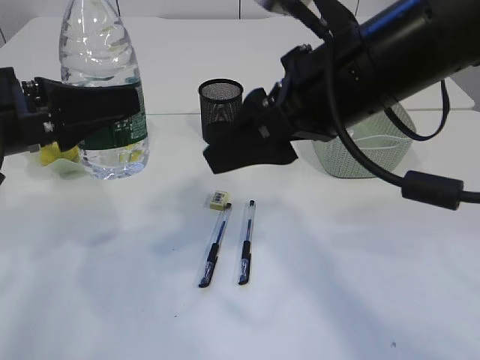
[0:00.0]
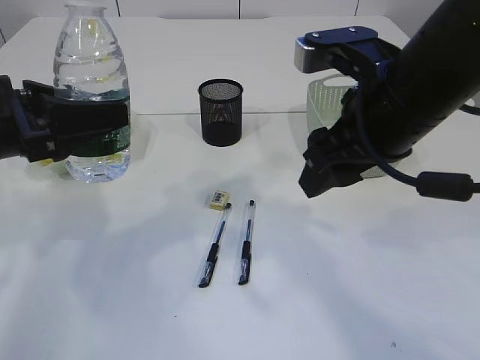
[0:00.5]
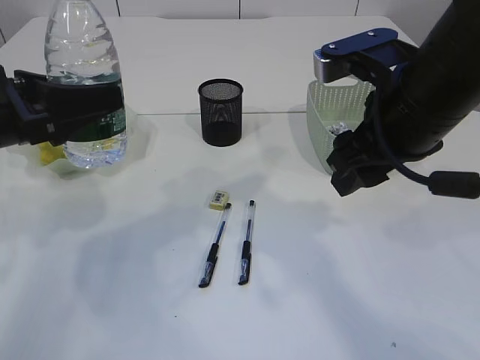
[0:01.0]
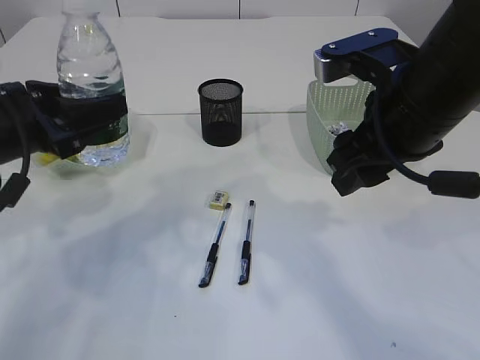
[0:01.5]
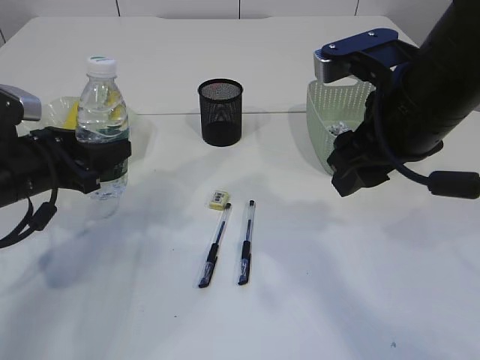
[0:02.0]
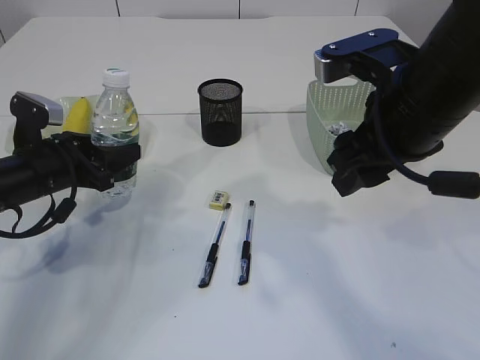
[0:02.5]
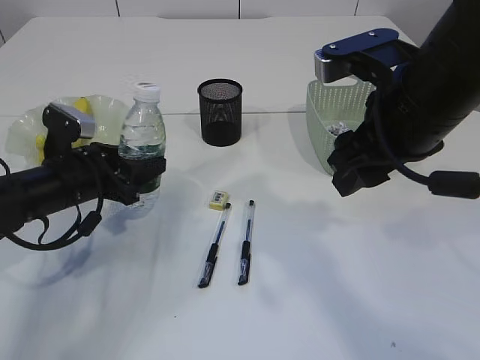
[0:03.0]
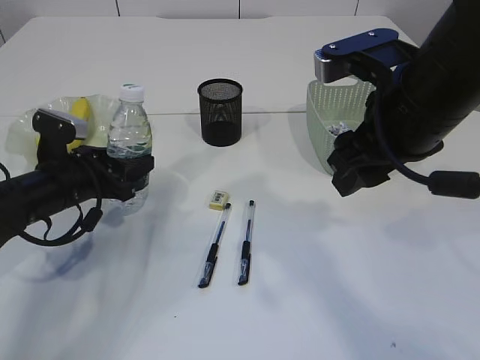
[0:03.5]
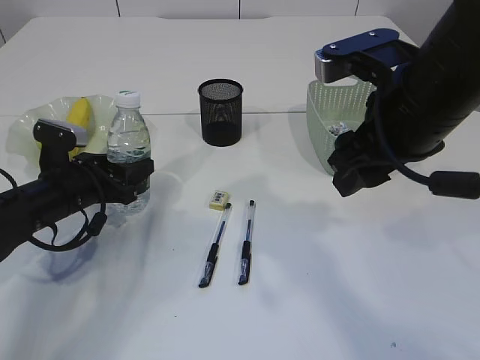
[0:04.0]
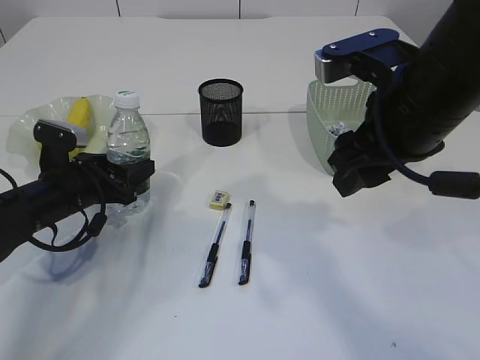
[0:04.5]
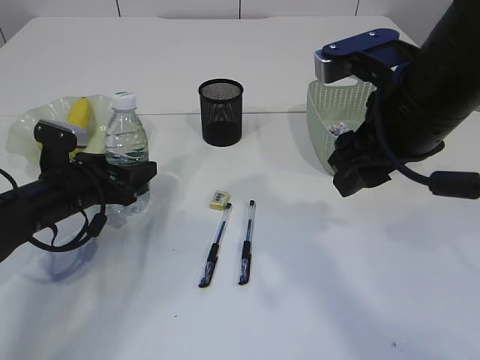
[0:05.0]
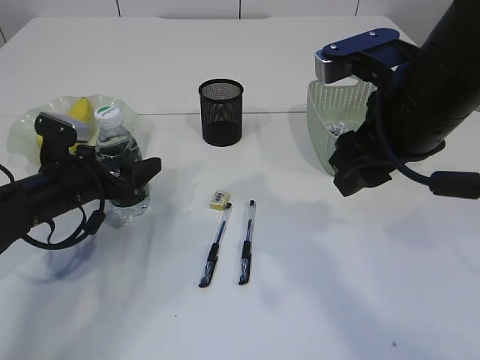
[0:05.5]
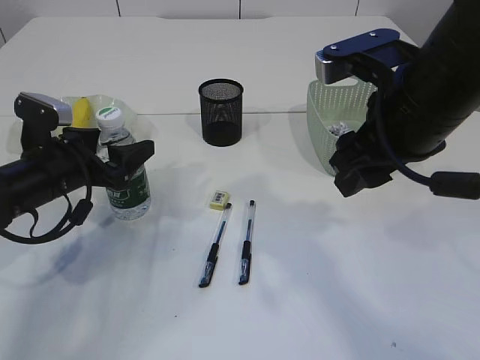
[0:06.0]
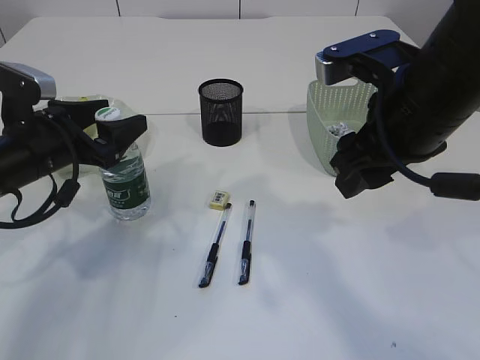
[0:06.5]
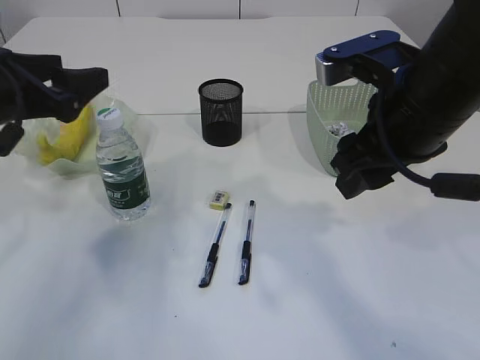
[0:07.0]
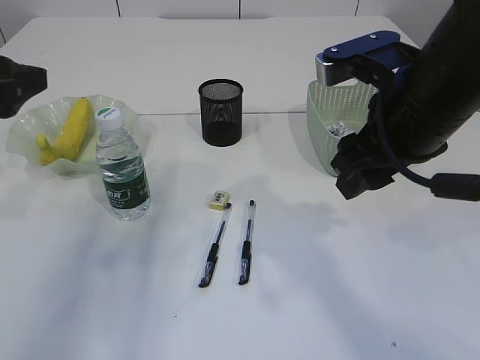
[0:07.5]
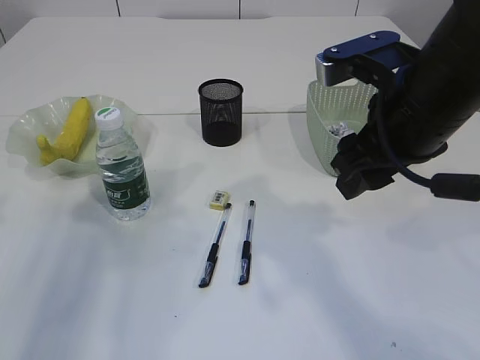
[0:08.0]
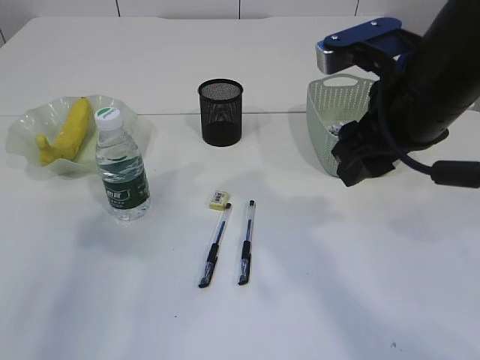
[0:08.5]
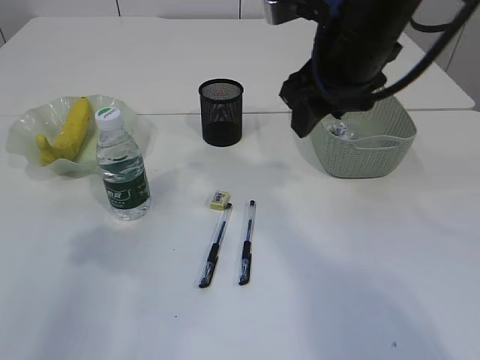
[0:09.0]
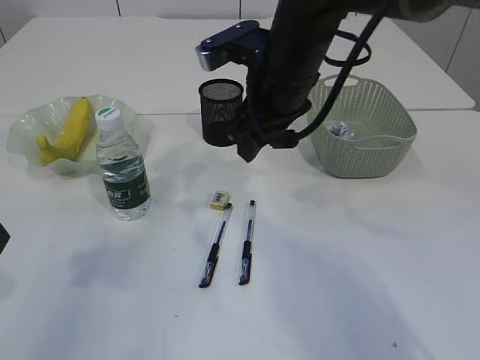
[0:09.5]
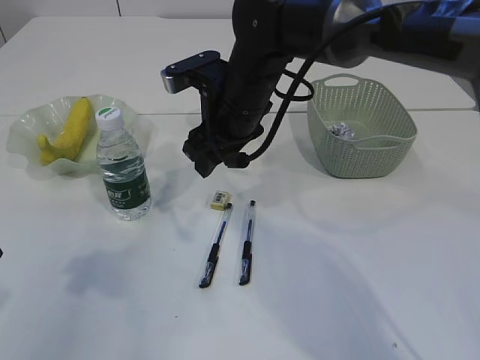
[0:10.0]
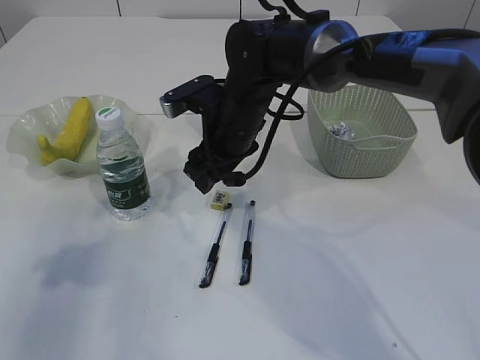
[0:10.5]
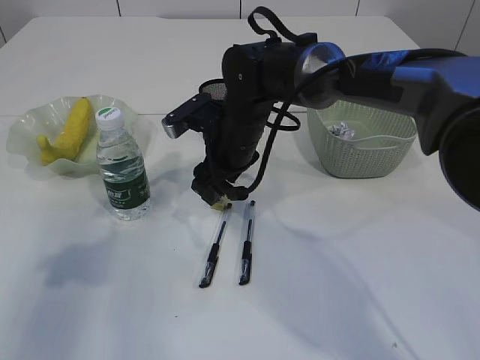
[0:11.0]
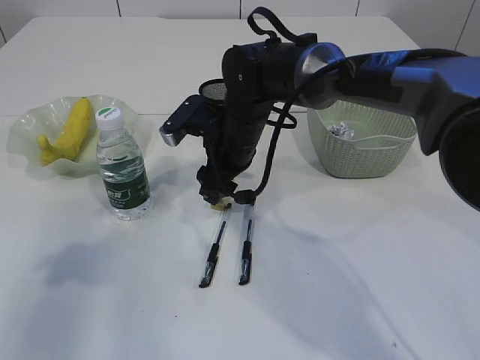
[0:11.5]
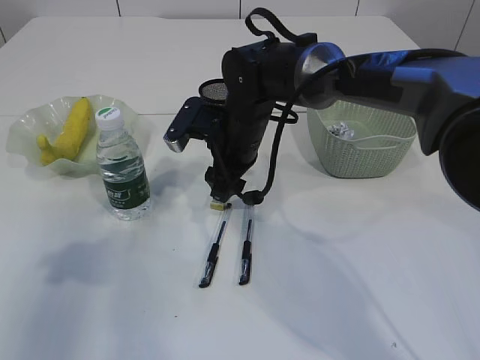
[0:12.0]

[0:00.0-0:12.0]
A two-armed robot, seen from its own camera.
Step, 0:00.0 to 0:06.5: Place the bottle.
0:00.0 to 0:02.0: The left gripper shifts roughly 10 cm downward and forward; the right gripper goes roughly 5 cm to the right.
0:02.0 to 0:04.0: The left gripper travels downward by roughly 5 cm.
0:04.0 to 0:06.0: There are only small adjustments of the grippers.
0:06.0 to 0:08.0: The left gripper heads upward, backward and to the left, covering roughly 20 cm.
0:08.0 to 0:10.0: The left gripper moves about 5 cm. The right gripper heads to the left, forward and downward, covering some 20 cm.
0:10.0 to 0:12.0: The right gripper travels downward by roughly 5 cm.

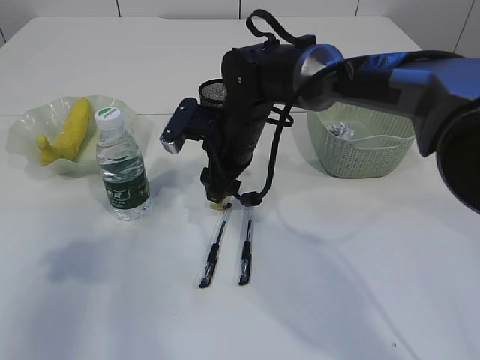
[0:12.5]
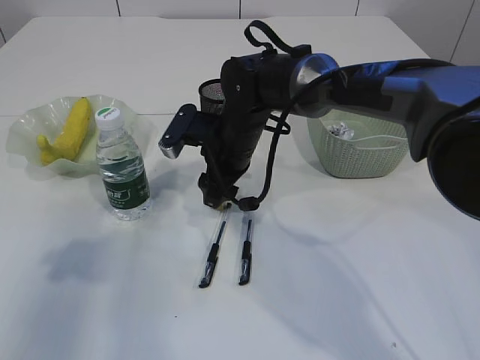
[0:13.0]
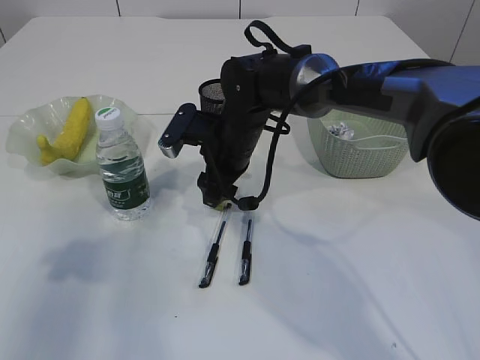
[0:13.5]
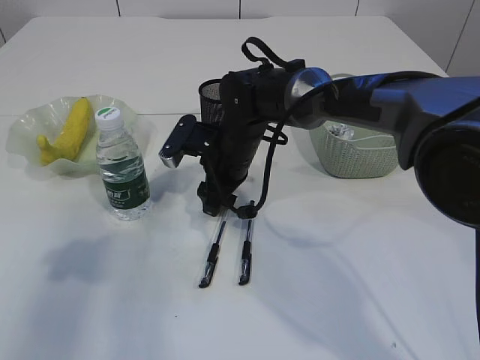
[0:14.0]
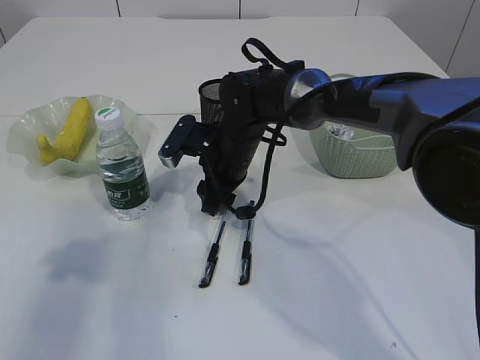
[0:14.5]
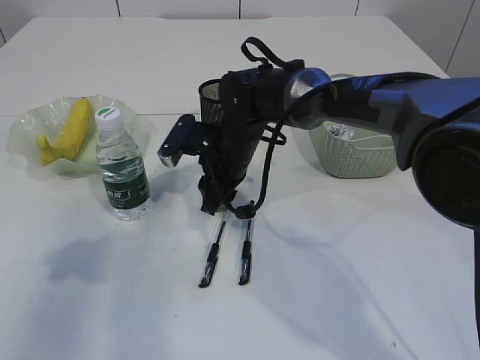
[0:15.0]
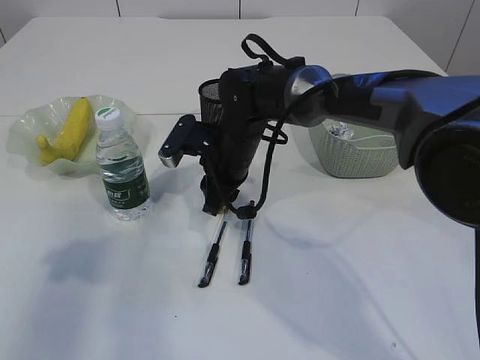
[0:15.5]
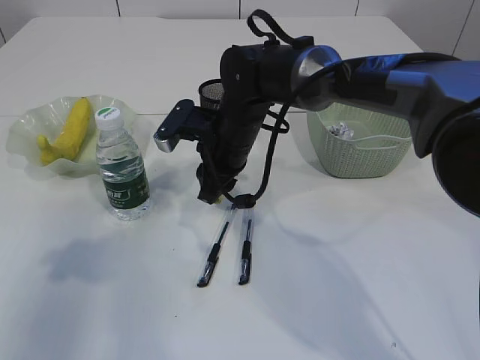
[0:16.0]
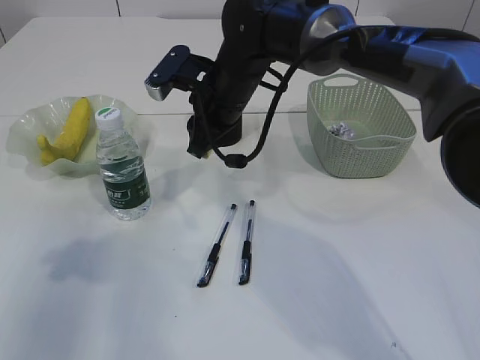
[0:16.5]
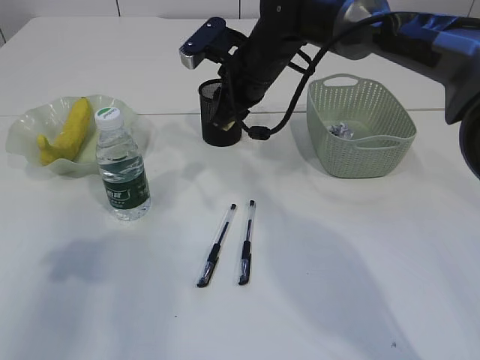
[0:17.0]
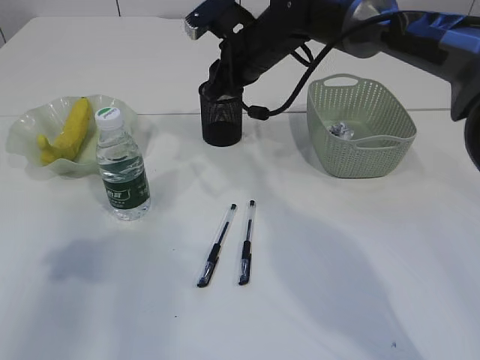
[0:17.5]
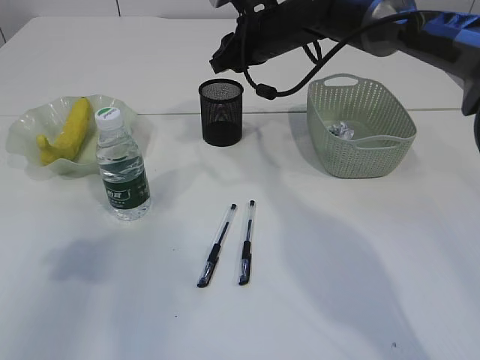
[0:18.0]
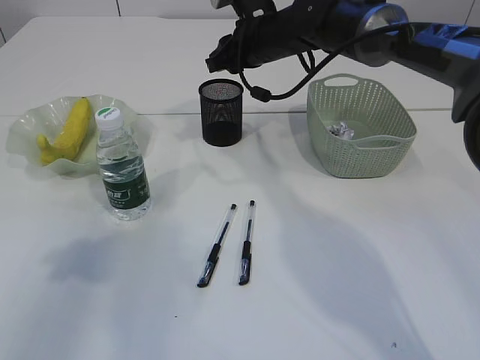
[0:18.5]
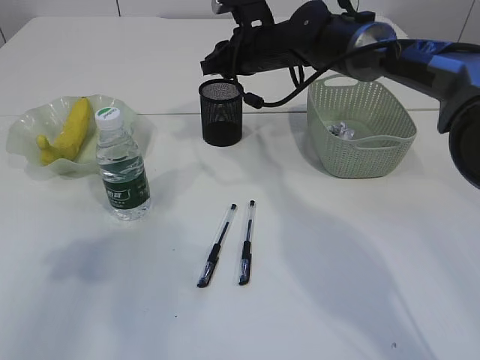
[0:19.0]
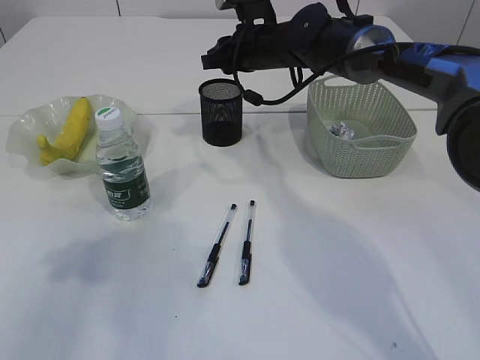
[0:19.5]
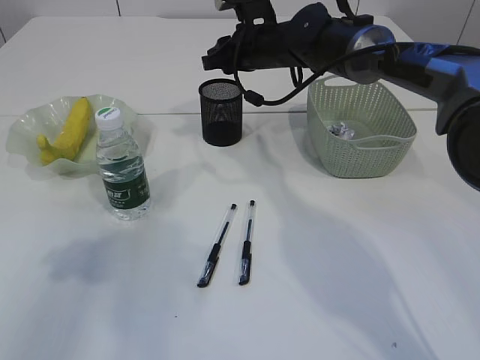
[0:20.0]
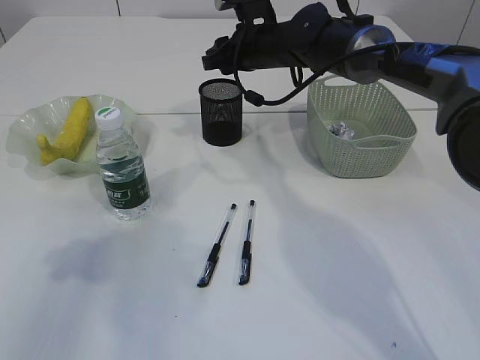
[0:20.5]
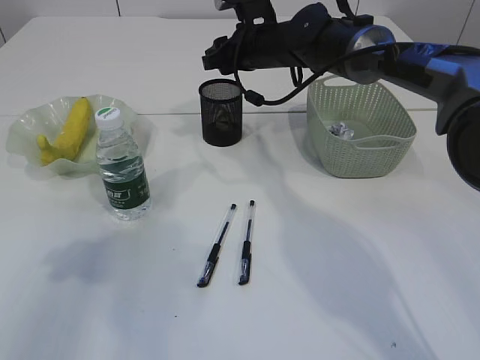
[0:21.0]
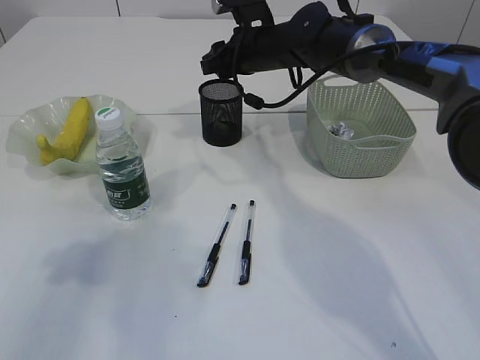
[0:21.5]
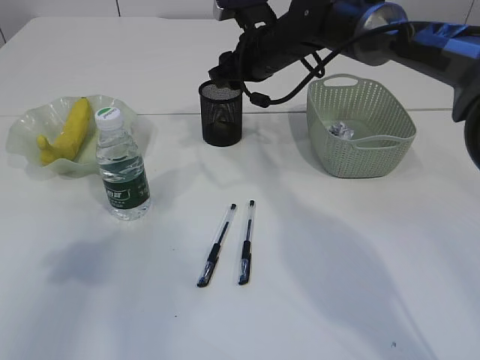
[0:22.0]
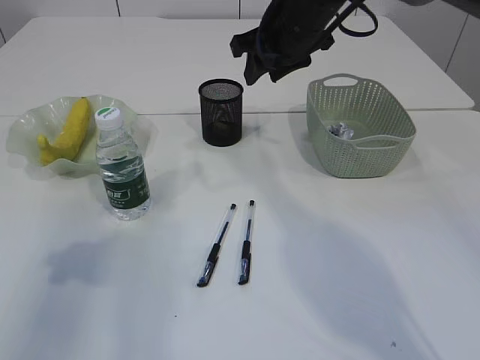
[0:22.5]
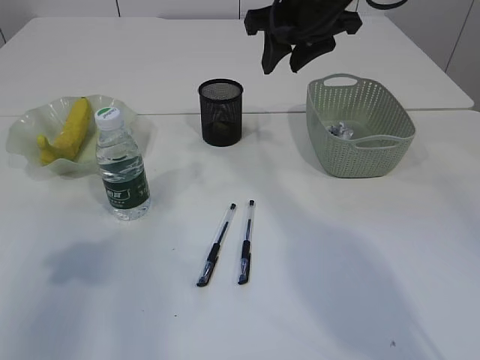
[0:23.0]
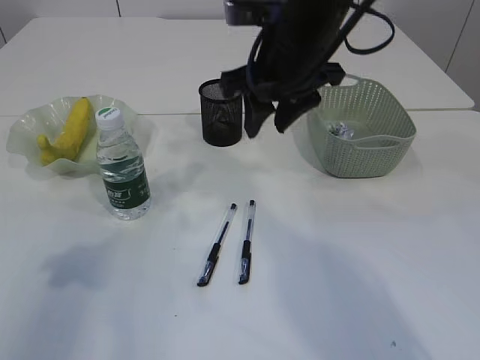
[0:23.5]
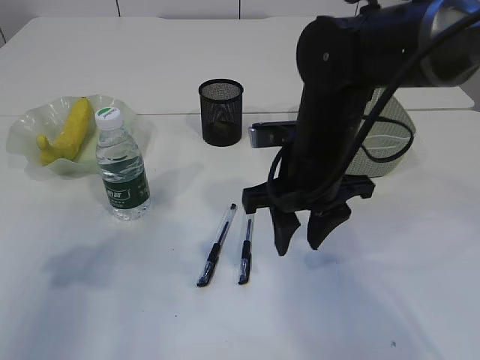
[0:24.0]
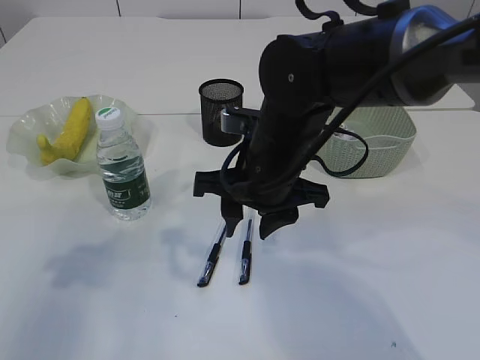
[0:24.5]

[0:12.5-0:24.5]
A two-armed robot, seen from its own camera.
Step, 0:12.5 to 0:16.0: Pick up the eraser.
Step, 0:16.5 to 0:21.0: Place the eraser into the pen holder.
0:12.5 to 0:14.5: The grippers make only small movements.
0:14.5 to 0:16.5: The right gripper shifts roughly 10 cm upward.
0:16.5 to 0:18.5: The right gripper travels forward and to the right by some 10 cm.
0:18.5 to 0:20.5: There are only small adjustments of the grippers.
0:20.5 to 0:22.5: The right gripper heads upward and backward, covering roughly 10 cm.
0:22.5 to 0:24.5: The right gripper travels backward and downward by about 20 cm.

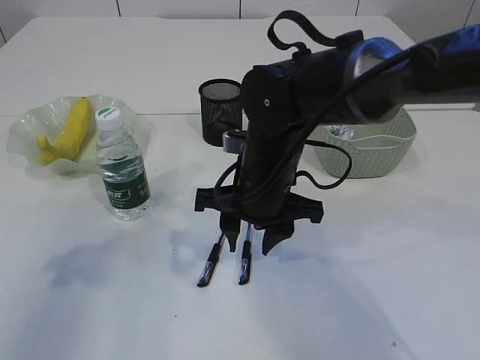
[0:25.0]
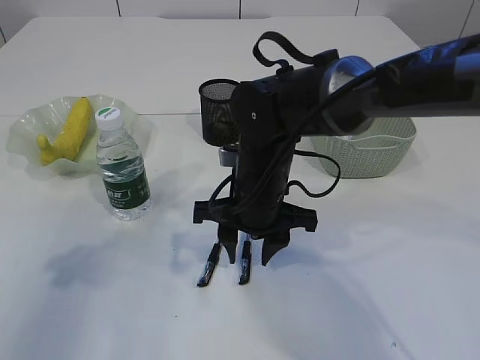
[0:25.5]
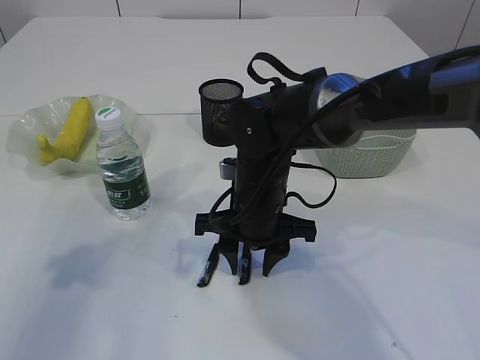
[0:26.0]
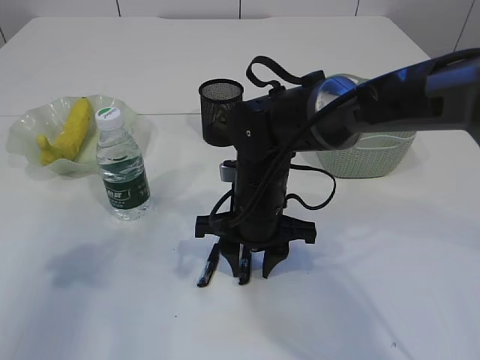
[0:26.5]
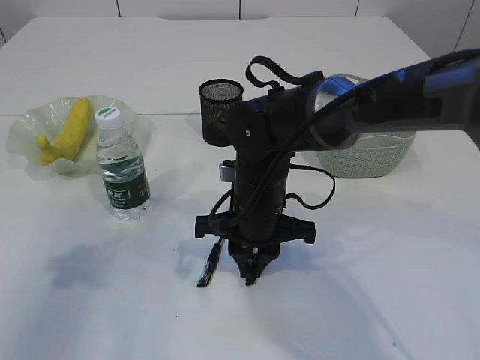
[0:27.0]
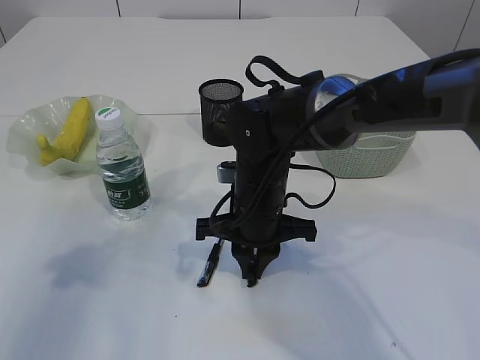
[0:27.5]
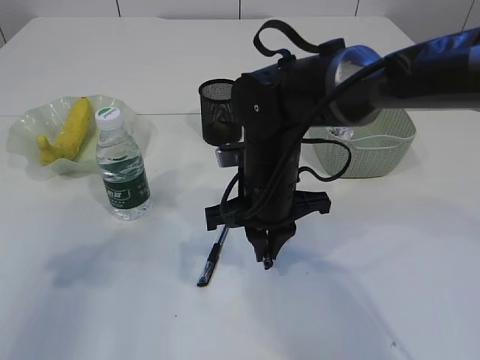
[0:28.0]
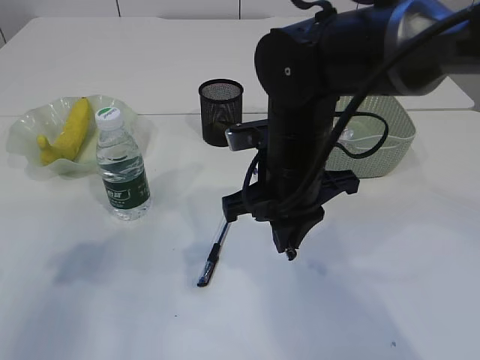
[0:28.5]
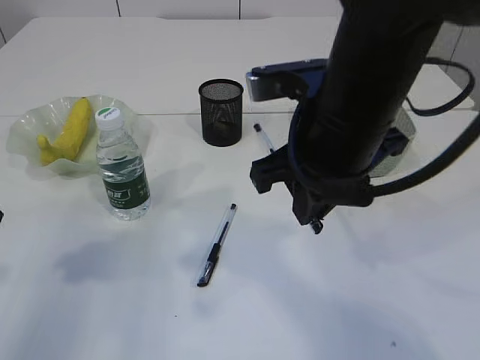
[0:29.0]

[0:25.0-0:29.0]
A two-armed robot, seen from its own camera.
Step, 0:25.0 to 0:28.5: Pick up the pen with right arm.
0:25.0 to 0:27.0: There are only small adjustments of the grippers.
0:27.0 to 0:29.0: The right gripper heads upward and backward, covering approximately 15 cm.
